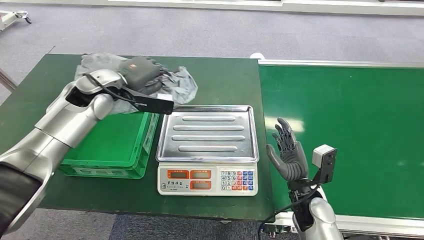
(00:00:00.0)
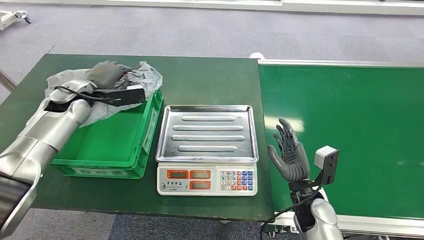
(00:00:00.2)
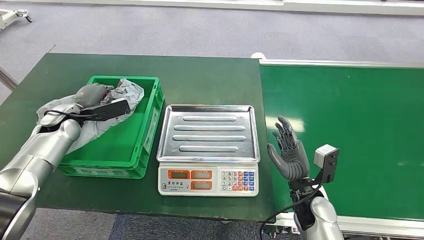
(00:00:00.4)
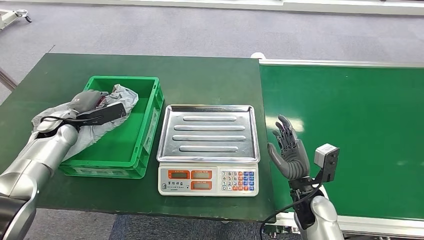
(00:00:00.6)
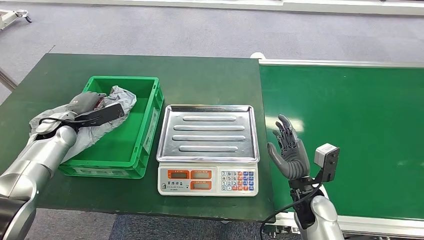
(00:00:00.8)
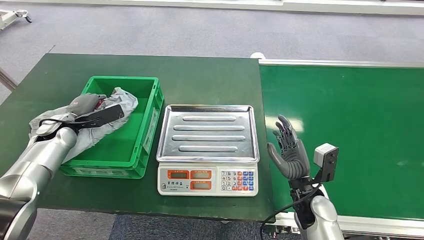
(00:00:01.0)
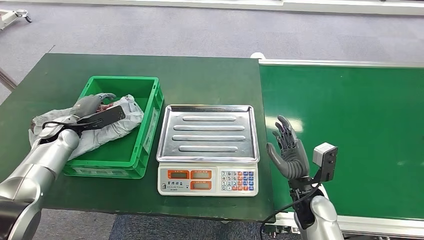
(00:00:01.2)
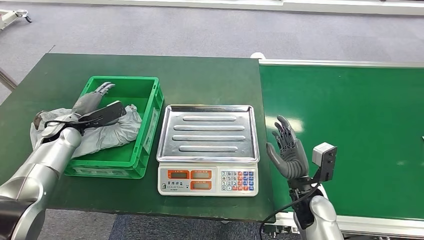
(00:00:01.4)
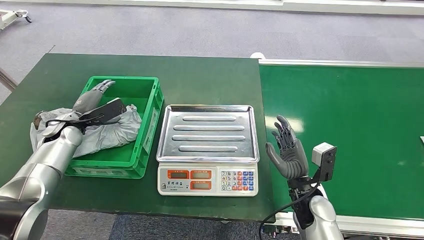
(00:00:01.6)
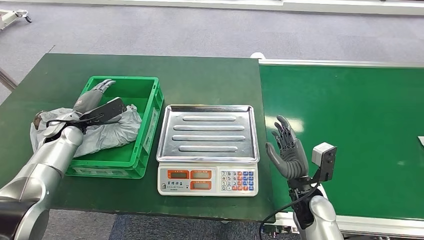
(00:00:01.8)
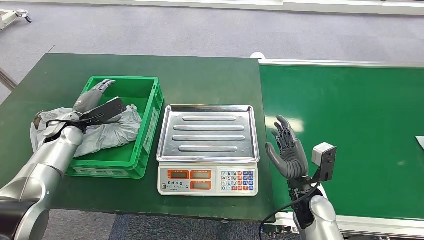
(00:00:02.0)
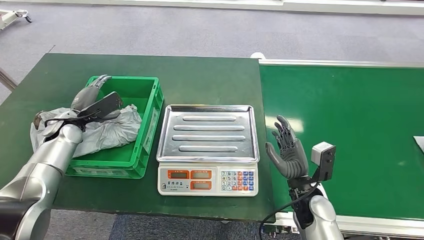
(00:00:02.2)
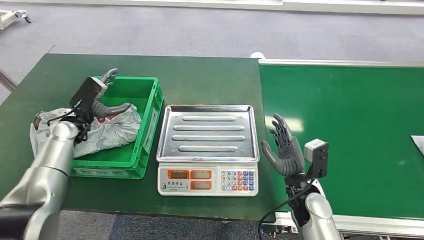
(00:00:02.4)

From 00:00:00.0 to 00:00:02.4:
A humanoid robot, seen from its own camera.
Step, from 00:00:00.0 to 00:00:02.4: Place the package into the parcel locker.
From 00:00:00.0 to 00:00:01.2: The left hand is displaced to the left, downward and backward by roughly 20 cm.
From 00:00:01.2 to 00:00:02.4: The left hand goes about 5 cm to the right.
